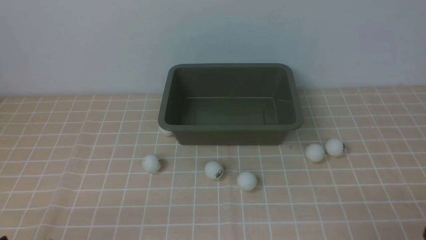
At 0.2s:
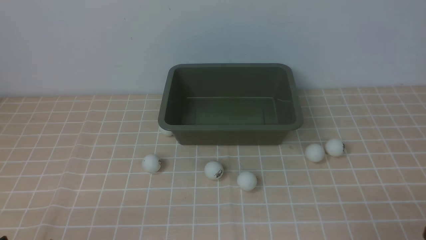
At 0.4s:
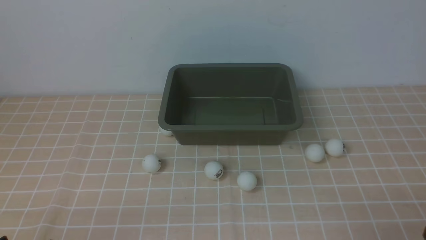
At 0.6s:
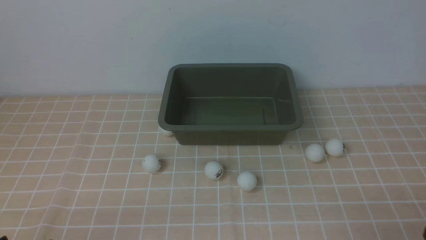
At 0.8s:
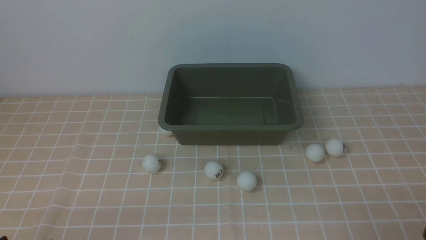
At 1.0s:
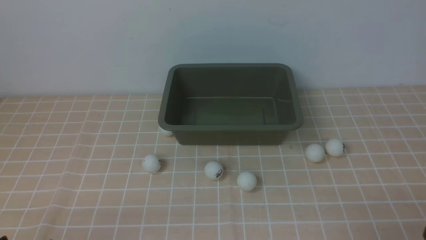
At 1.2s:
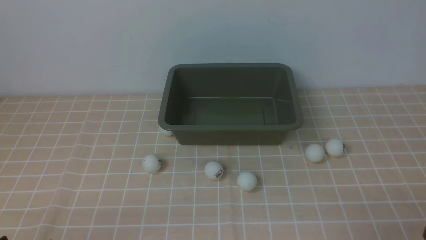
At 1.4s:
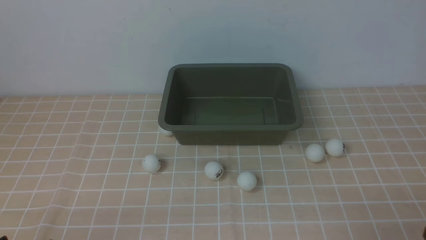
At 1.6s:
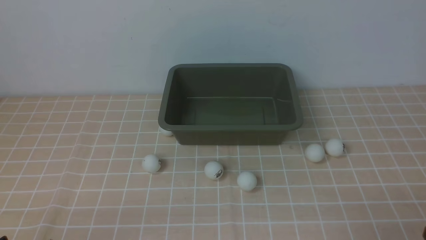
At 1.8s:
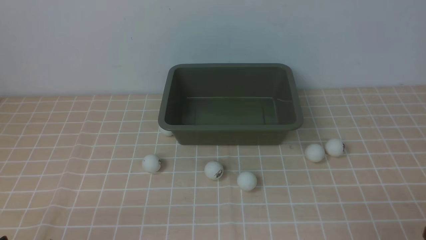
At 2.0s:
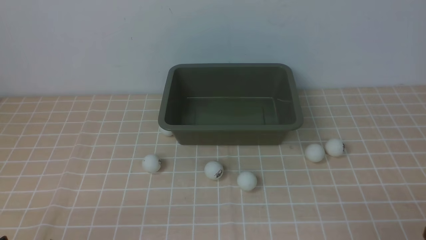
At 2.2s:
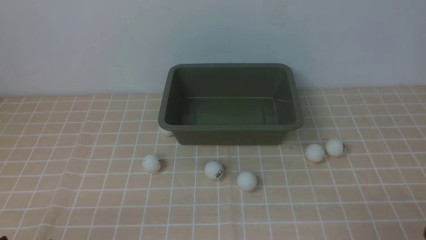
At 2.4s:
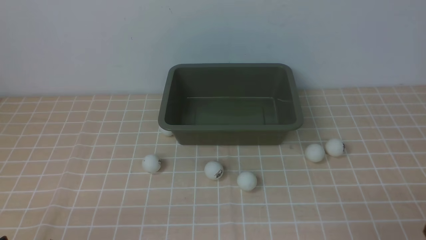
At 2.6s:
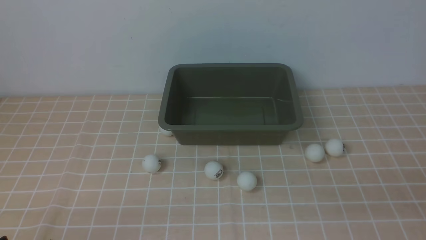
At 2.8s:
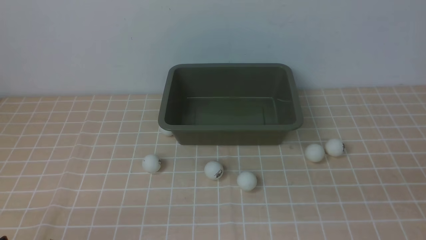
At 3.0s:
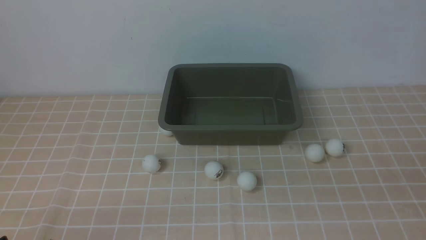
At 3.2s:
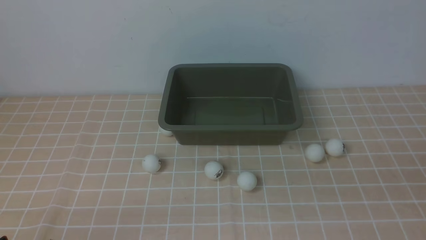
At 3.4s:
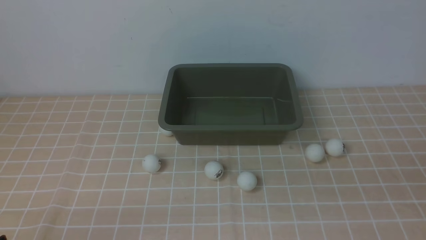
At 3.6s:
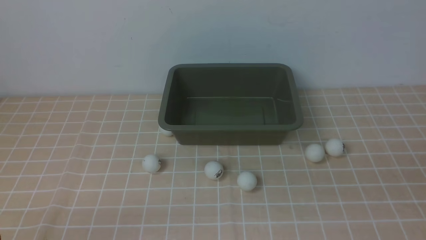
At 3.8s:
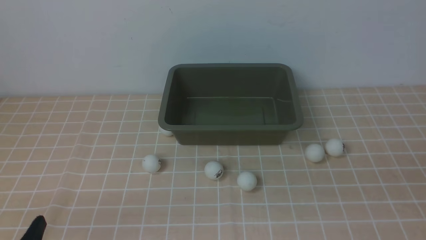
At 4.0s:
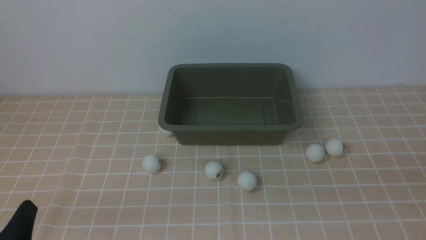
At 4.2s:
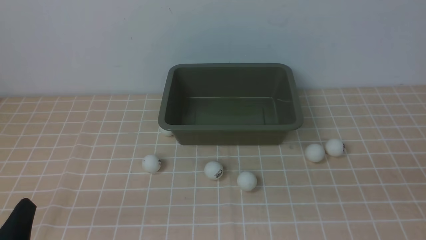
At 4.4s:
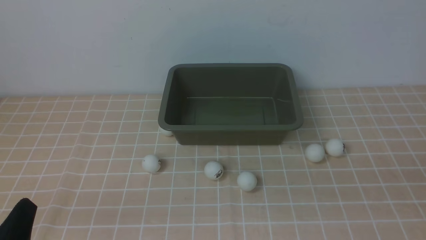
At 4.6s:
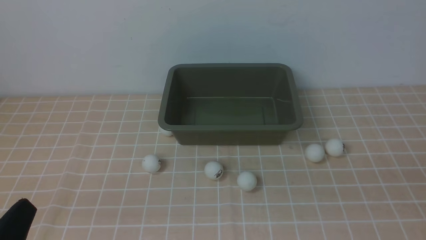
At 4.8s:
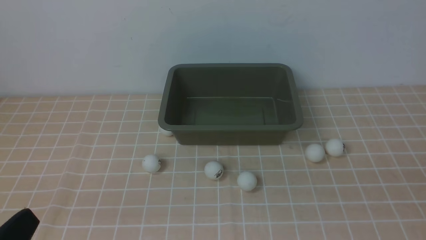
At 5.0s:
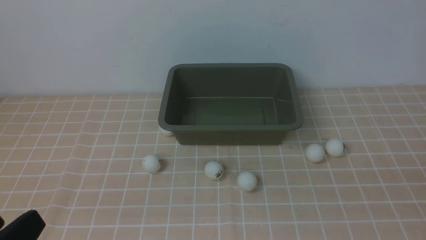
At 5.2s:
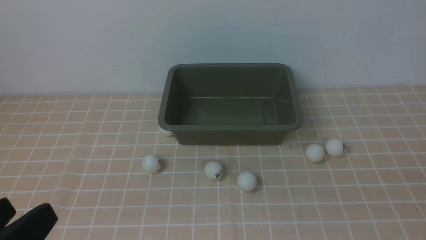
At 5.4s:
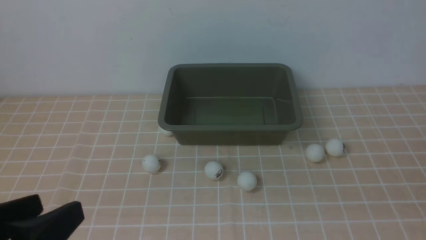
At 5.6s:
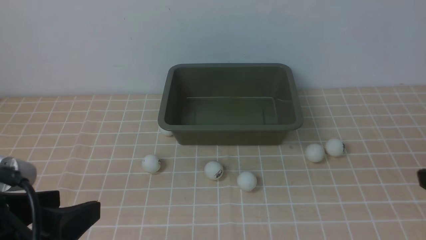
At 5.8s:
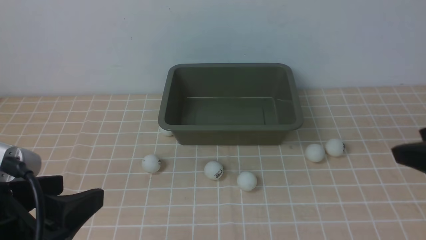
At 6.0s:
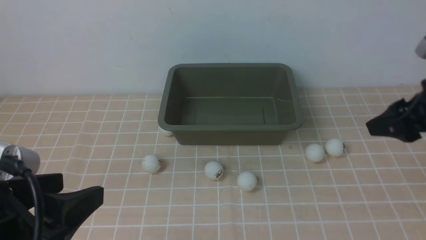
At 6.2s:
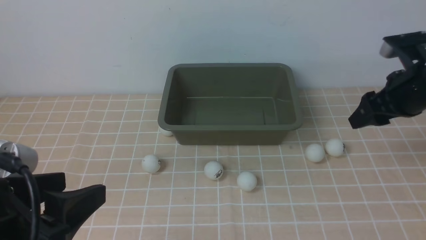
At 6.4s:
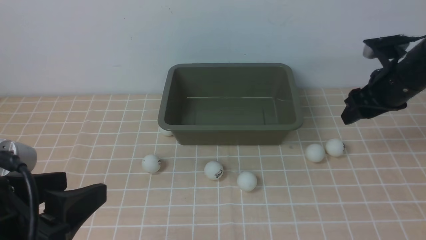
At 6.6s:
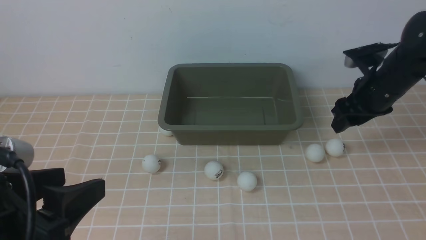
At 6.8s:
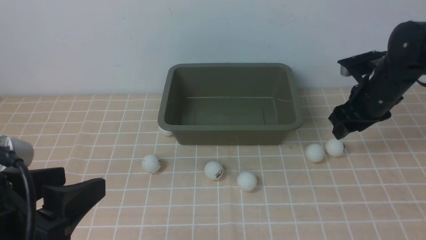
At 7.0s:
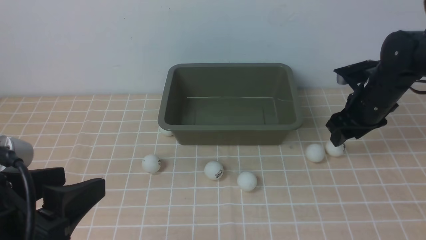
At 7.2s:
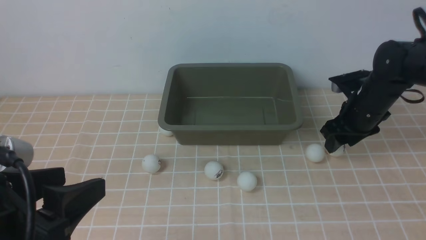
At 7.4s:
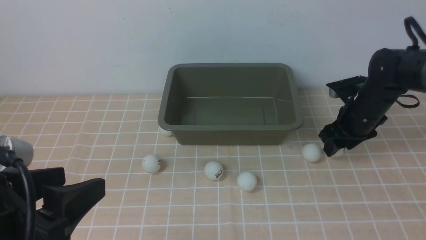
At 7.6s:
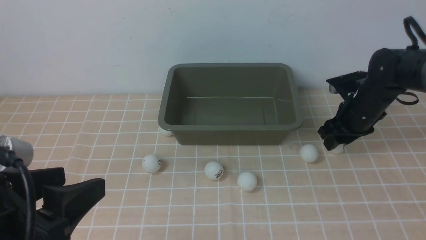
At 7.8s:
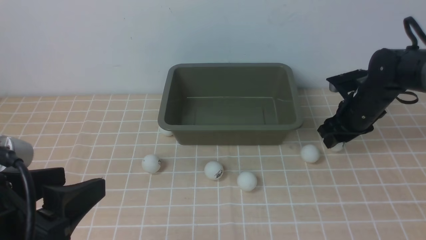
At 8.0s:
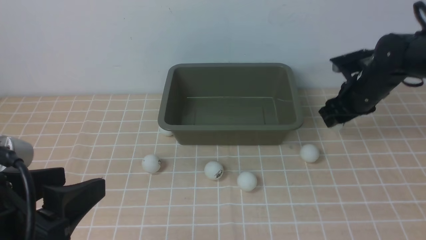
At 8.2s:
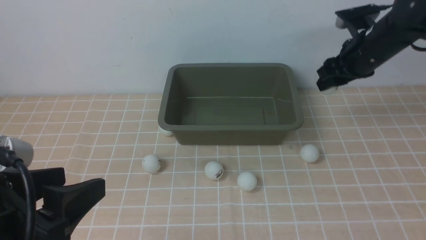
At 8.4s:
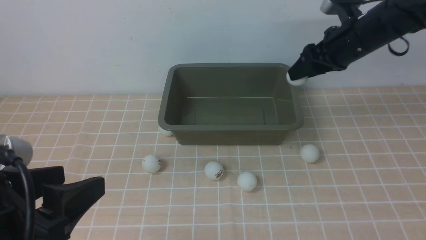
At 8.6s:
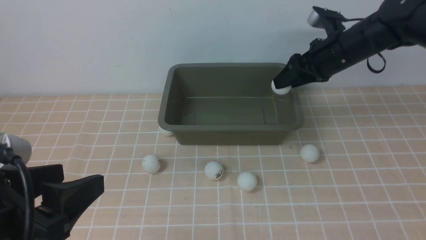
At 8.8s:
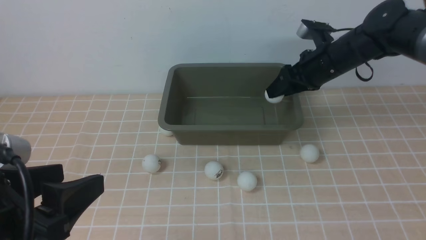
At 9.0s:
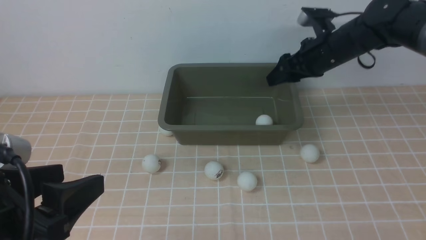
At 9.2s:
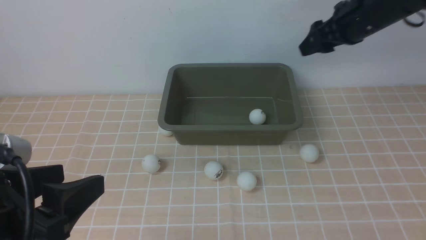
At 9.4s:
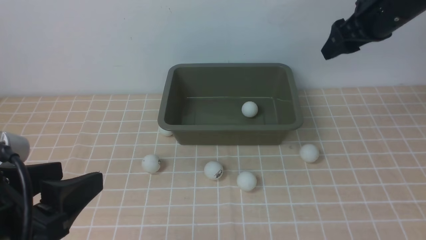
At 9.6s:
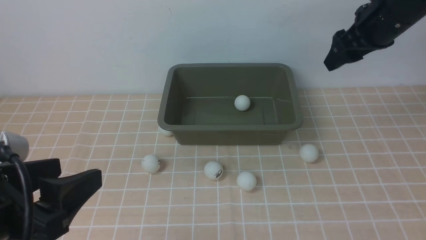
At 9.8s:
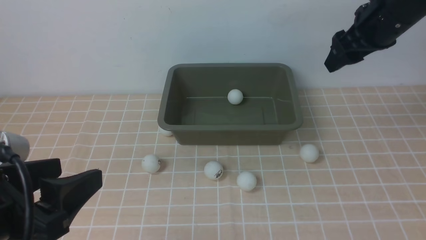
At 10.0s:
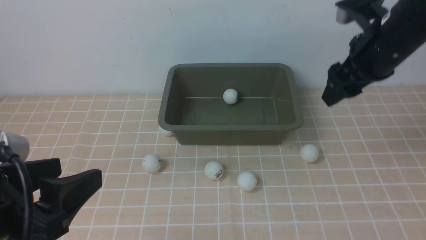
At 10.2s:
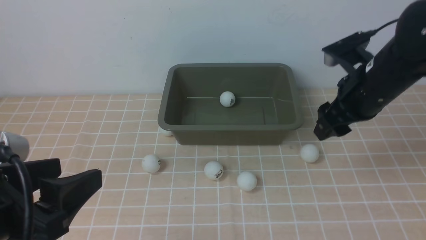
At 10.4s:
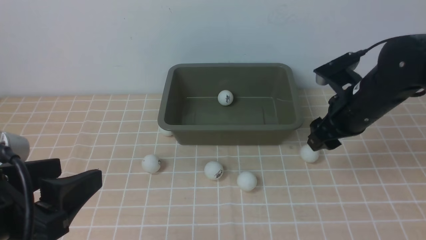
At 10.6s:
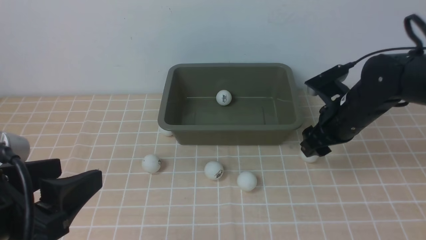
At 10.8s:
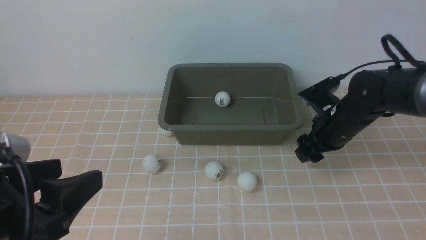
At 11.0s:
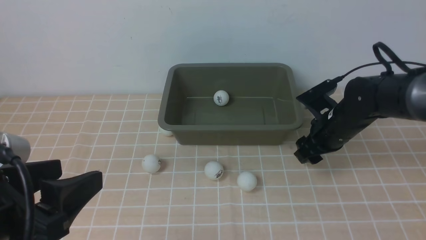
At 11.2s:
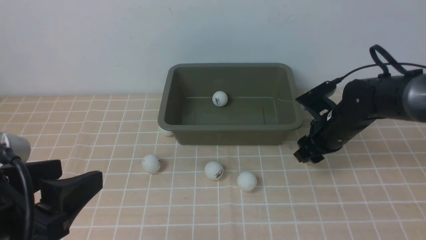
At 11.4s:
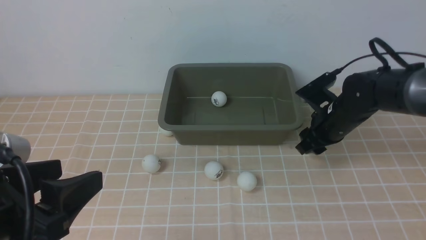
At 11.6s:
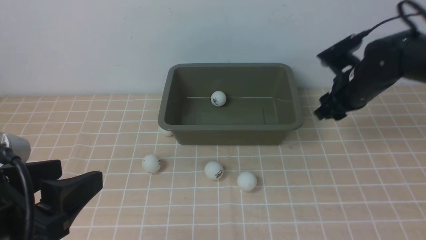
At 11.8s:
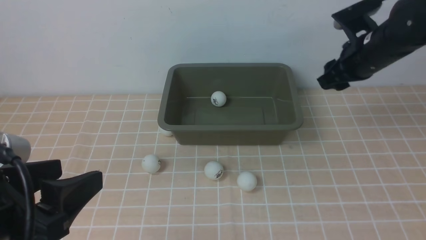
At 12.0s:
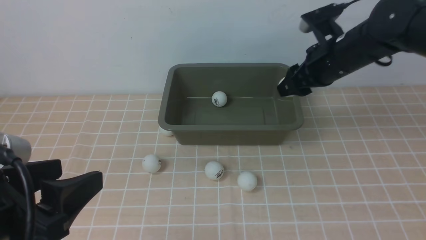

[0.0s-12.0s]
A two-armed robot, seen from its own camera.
Step, 0.0s to 8.0s: use the right arm to clamp the table tennis ball closest to it.
Step, 8.2s to 9.2s: use the right arm to put the table tennis ball into the box.
Step, 9.4s to 11.6s: use the right arm to clamp the table tennis ball closest to it.
0.0s to 1.6s: Neither gripper changes place.
4.4s to 6.0s: The right gripper goes about 25 cm forward; the left gripper heads upward and forward, covering some 10 cm.
6.0s to 7.6s: The right gripper heads downward and forward, covering approximately 20 cm, and closes.
7.6s to 9.0s: The right gripper heads upward and to the left, covering roughly 15 cm, and opens.
9.0s to 10.4s: The right gripper shifts approximately 10 cm backward.
10.4s to 12.0s: The right gripper shifts some 5 cm forward, reaches approximately 10 cm downward, then returns, and closes.

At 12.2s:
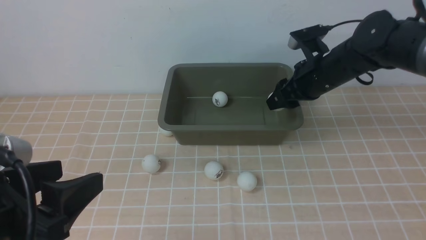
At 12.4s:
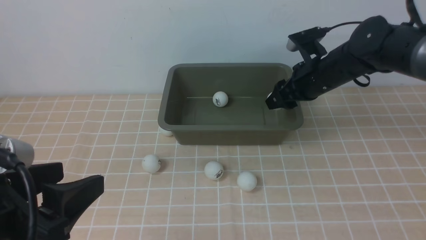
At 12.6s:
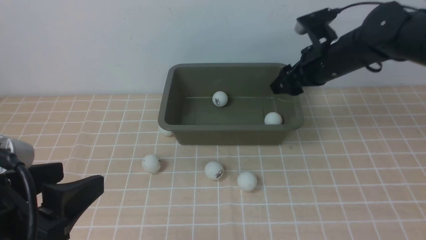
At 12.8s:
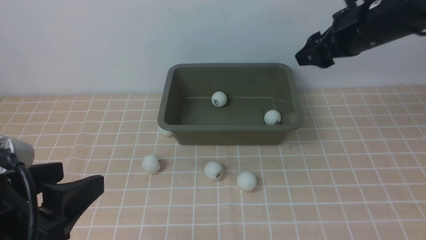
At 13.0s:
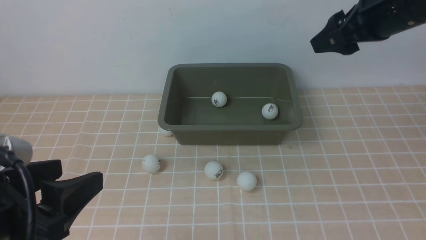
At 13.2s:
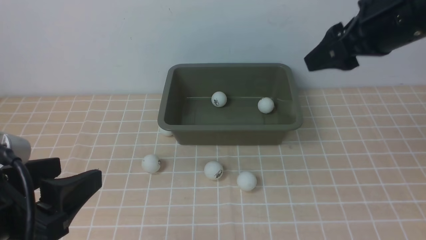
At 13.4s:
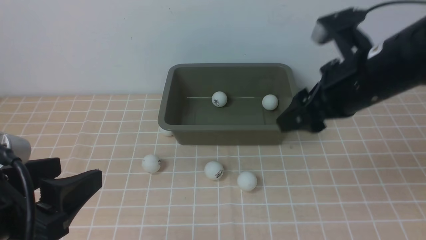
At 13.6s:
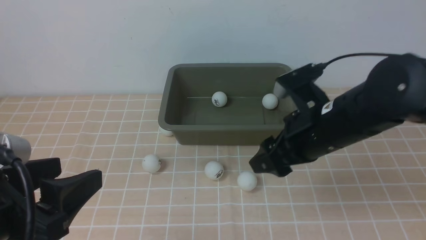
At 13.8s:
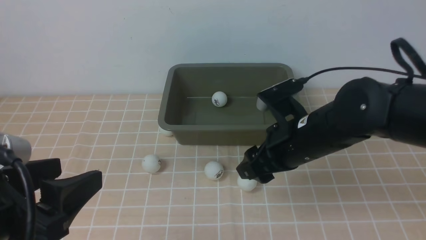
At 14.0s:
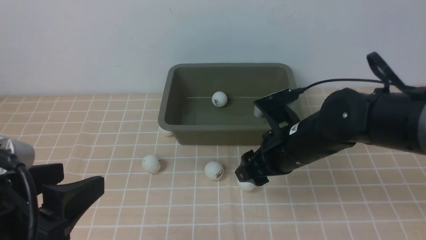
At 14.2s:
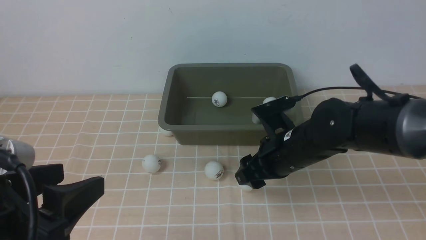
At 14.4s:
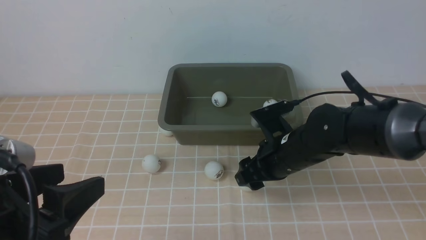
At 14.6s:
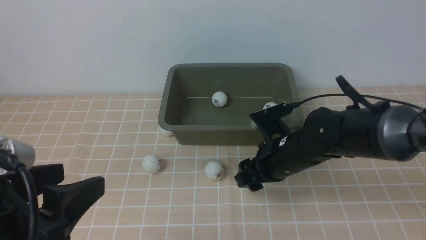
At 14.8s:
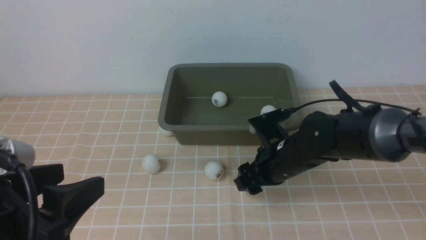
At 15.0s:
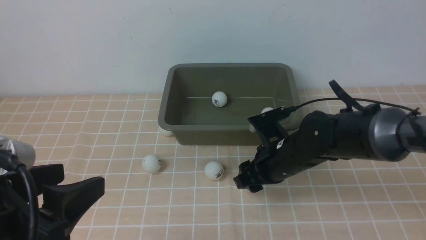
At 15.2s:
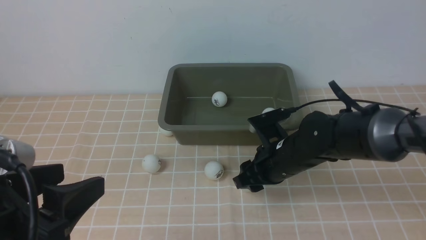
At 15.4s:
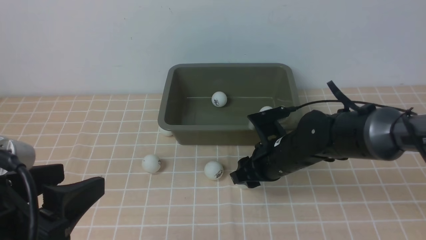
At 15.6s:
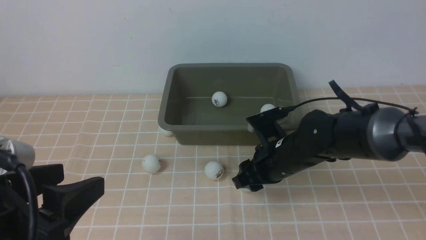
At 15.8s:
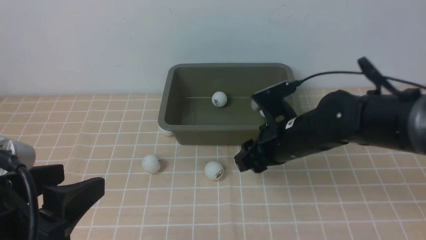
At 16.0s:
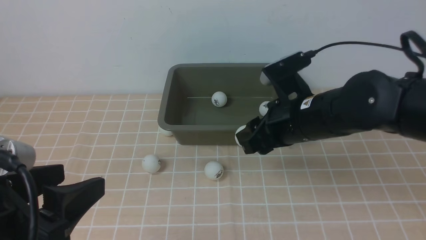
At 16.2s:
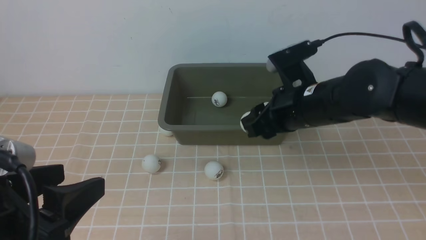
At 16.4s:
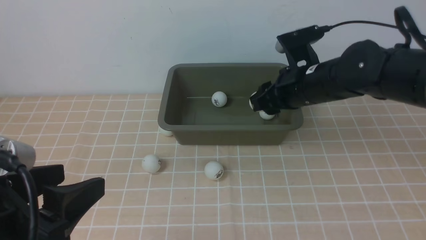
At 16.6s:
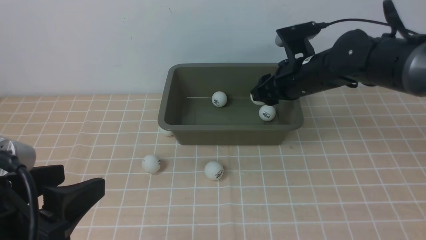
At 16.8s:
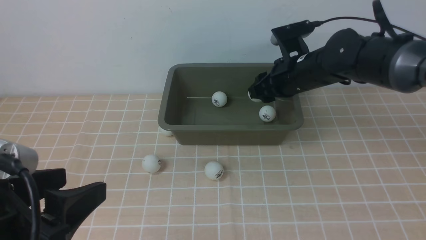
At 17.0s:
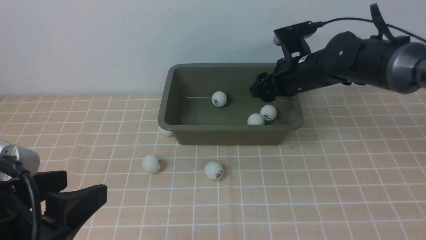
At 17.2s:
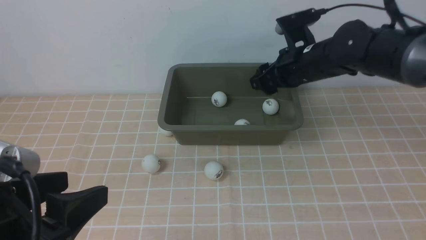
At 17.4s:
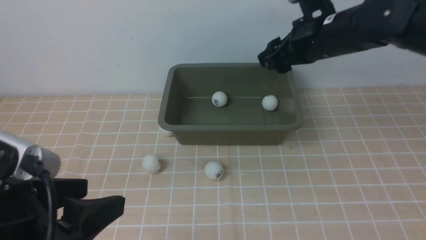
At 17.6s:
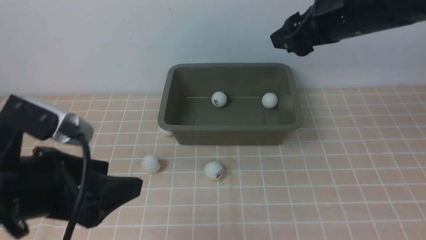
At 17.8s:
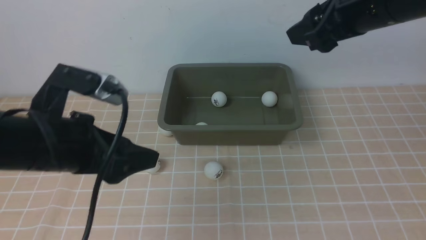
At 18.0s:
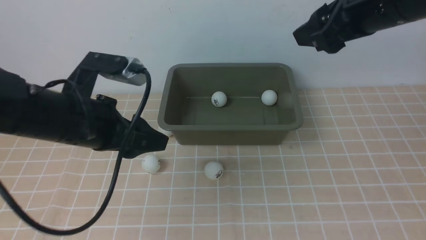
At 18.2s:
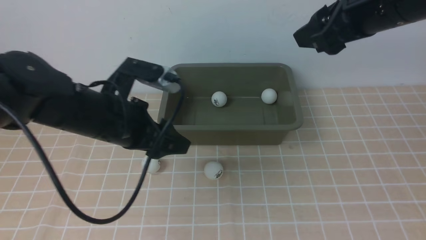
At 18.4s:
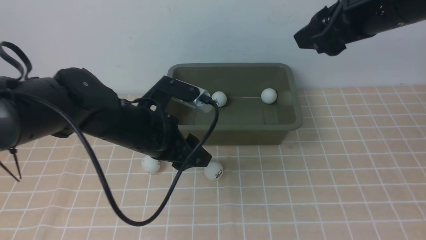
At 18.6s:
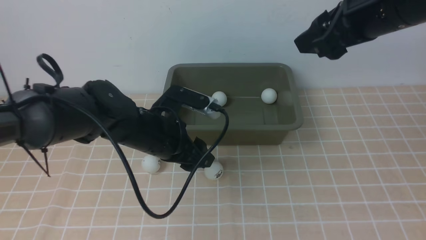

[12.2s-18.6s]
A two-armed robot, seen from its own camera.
Step, 12.2s to 12.6s: use the right arm to put the table tennis ball into the box.
Step, 12.8s to 15.8s: use the right arm to clamp the table tennis ball closest to it.
Step, 16.2s to 17.2s: use the right arm to put the table tennis ball into the box.
12.2s to 13.8s: The right gripper shifts some 15 cm backward and to the left, reaches about 15 cm upward, then returns, and opens.
13.8s to 15.4s: The right gripper heads downward, covering some 10 cm, and closes.
15.4s to 17.0s: The right gripper moves forward and upward, approximately 15 cm, and opens up.
17.0s to 18.6s: The left gripper shifts approximately 25 cm forward, to the right and downward, and closes its fingers; the right gripper shifts roughly 20 cm upward and backward.
